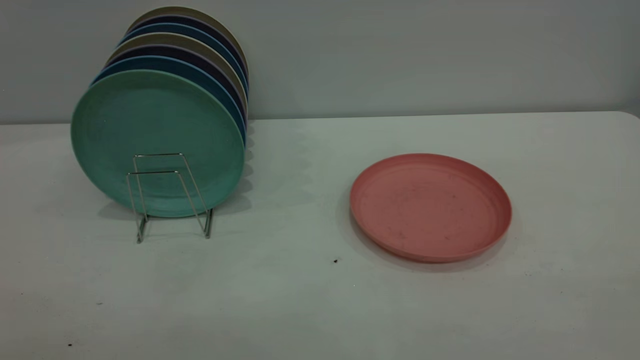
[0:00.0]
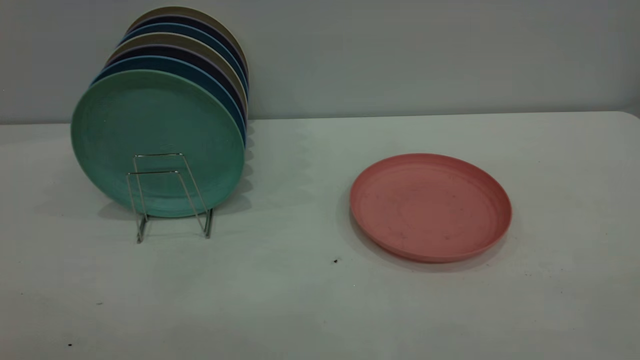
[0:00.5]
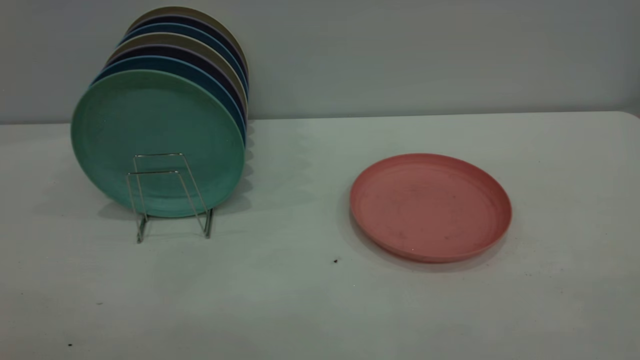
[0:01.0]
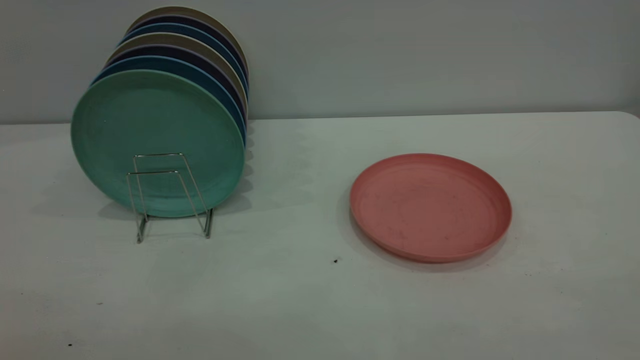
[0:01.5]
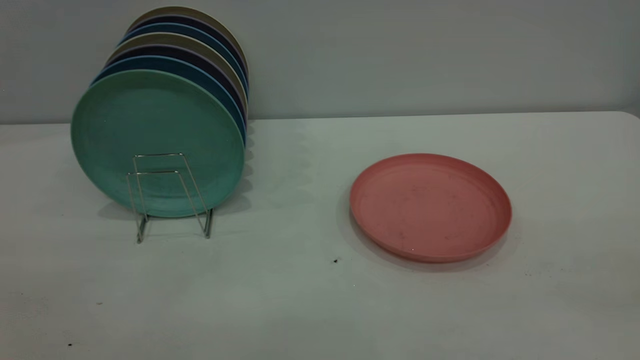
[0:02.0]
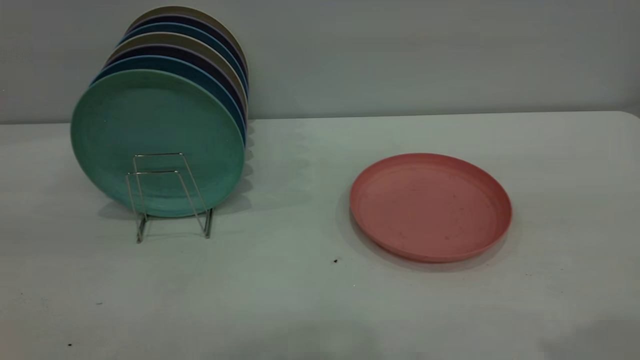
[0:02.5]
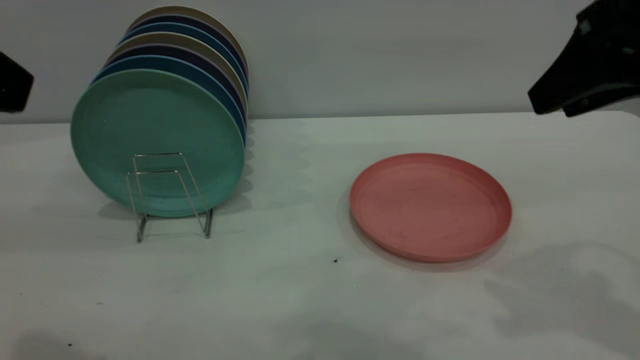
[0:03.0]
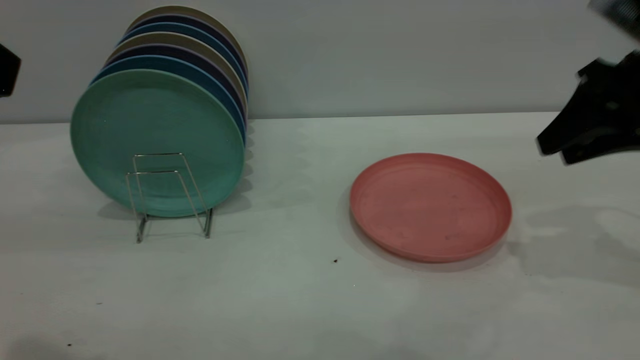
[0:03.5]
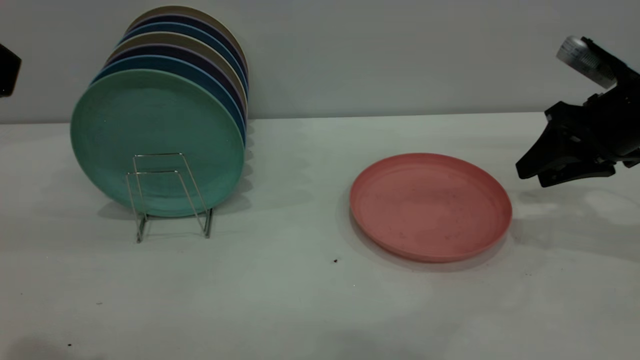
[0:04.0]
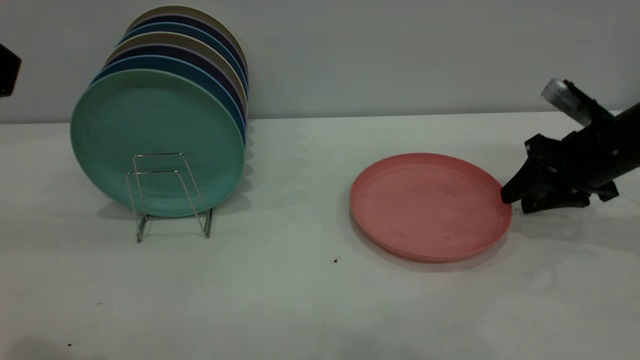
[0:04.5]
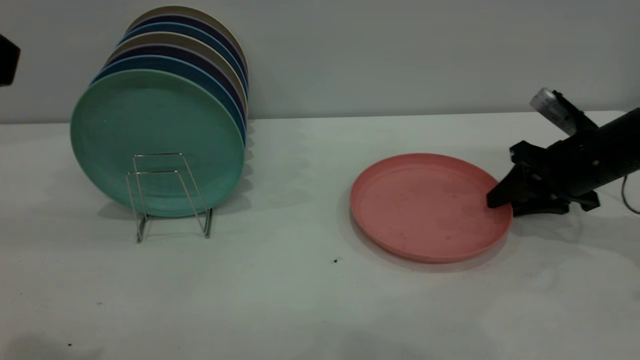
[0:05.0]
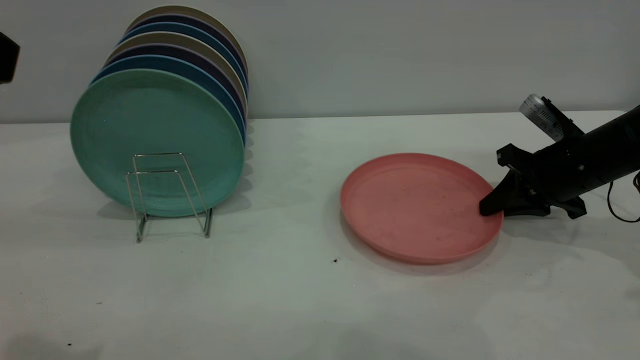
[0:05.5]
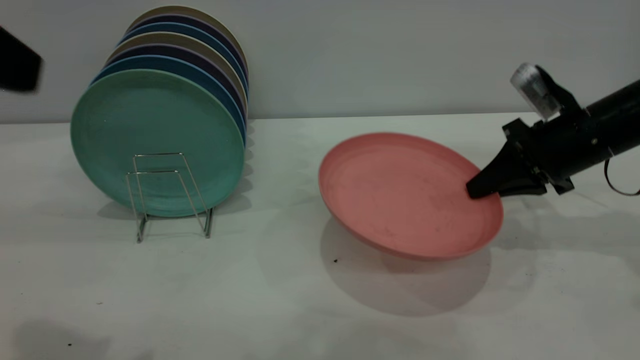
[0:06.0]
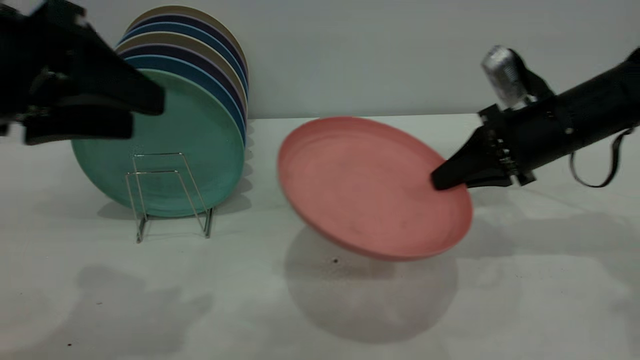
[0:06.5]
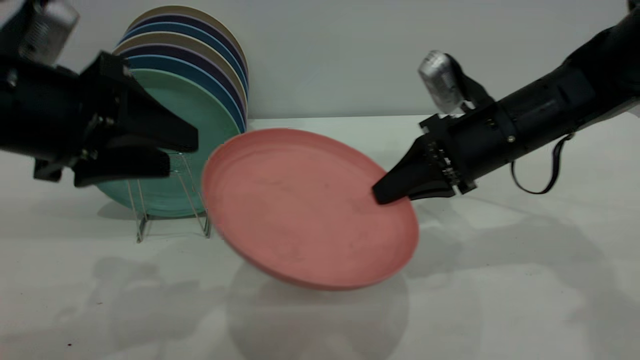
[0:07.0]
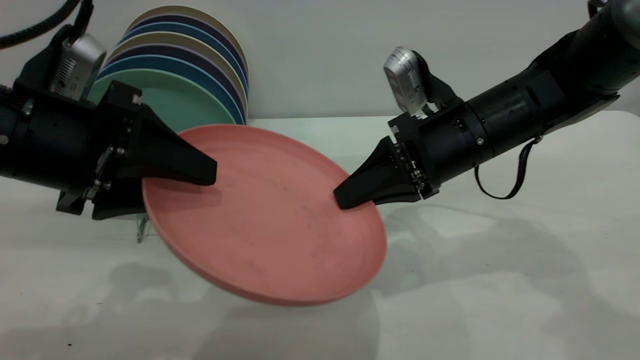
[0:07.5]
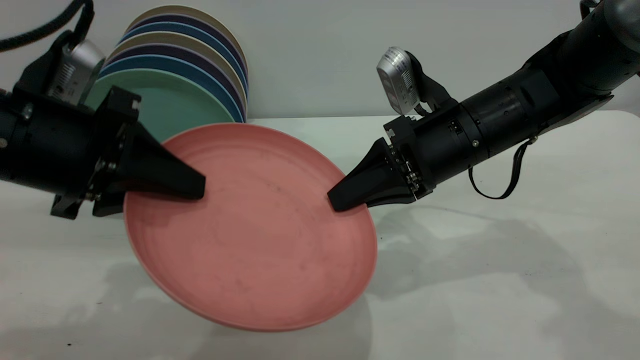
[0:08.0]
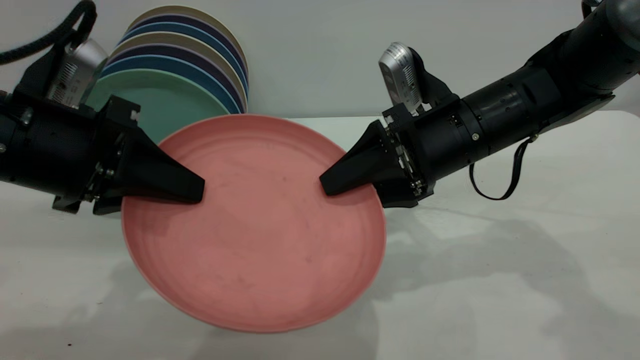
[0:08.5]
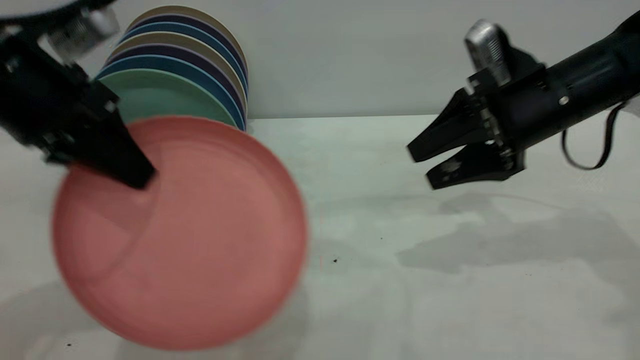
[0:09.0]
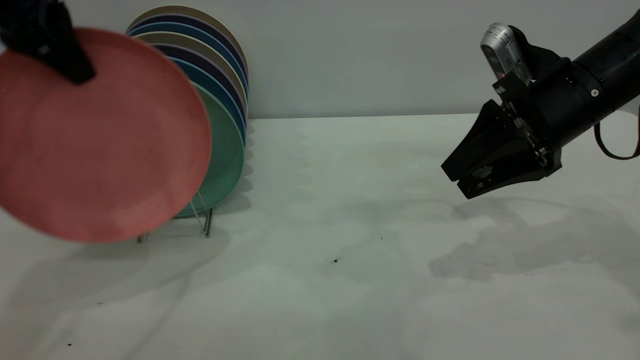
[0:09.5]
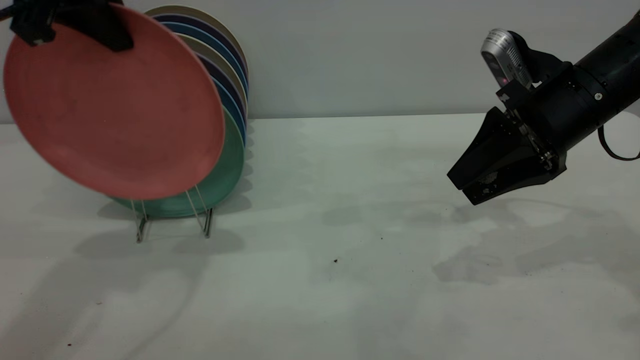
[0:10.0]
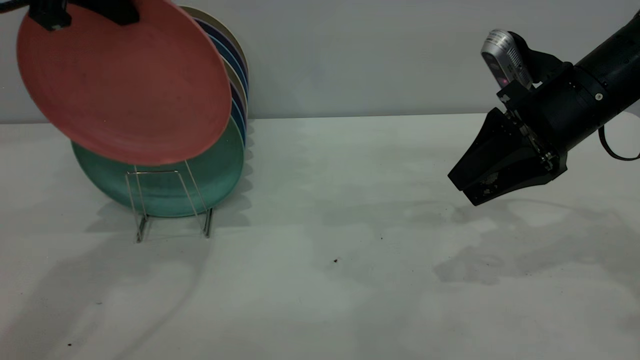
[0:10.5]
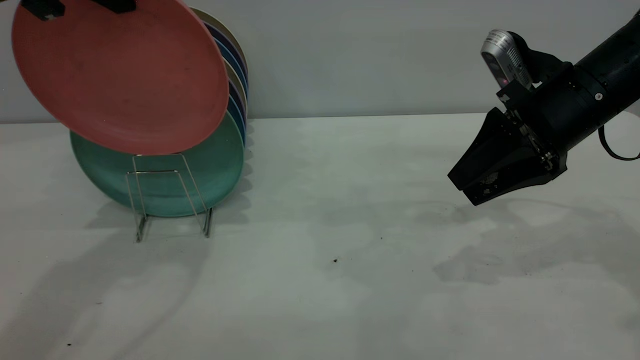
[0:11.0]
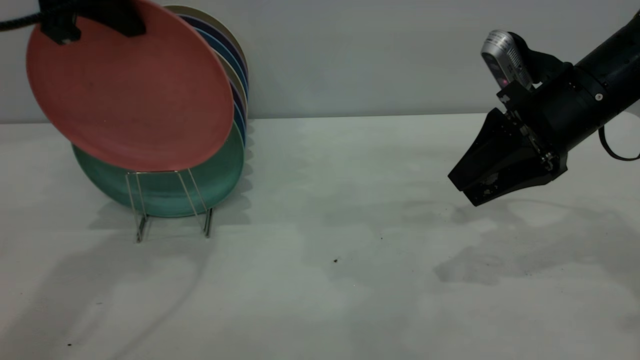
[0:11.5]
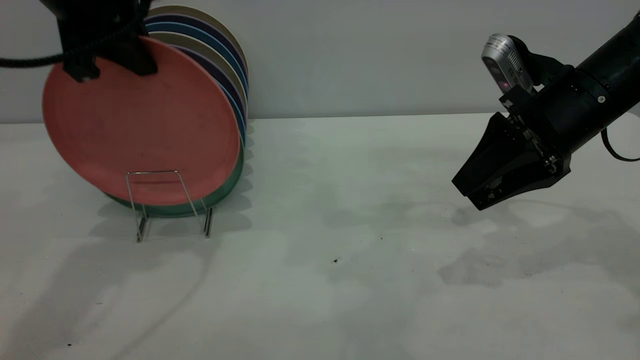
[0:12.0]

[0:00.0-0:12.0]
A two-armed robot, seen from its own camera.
Task of the whole recording: the right gripper grasp the pink plate, the right gripper pass the pink plate to the left gripper, and the left gripper place the pink plate on the plate rack.
Step, 0:00.0 to 0:06.0: Pick up the plate with the right gripper.
Step, 0:06.5 to 0:08.5: Pass the plate from the right gripper to the left gripper.
0:02.0 to 0:04.0: The right gripper is displaced forward and downward by about 40 cm.
0:04.0 to 0:06.0: The right gripper closes.
0:06.0 to 0:08.0: The right gripper travels to the left by approximately 15 cm. The left gripper shifts about 15 cm downward and forward, and closes.
0:08.0 to 0:10.0: The left gripper heads upward and forward, covering some 20 cm. Meanwhile the right gripper goes approximately 10 cm to the right, and opens.
0:10.0 to 0:12.0: The left gripper changes place by about 5 cm.

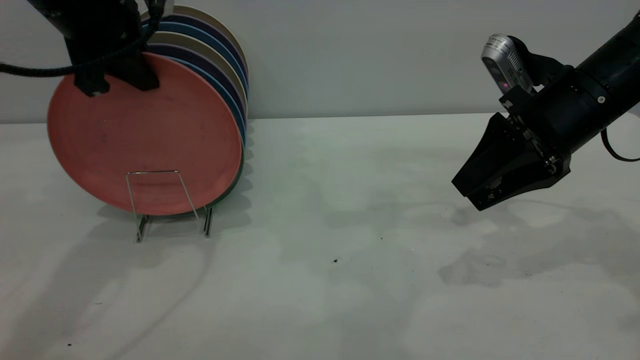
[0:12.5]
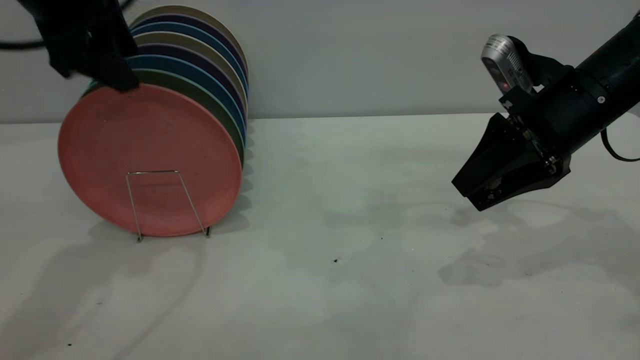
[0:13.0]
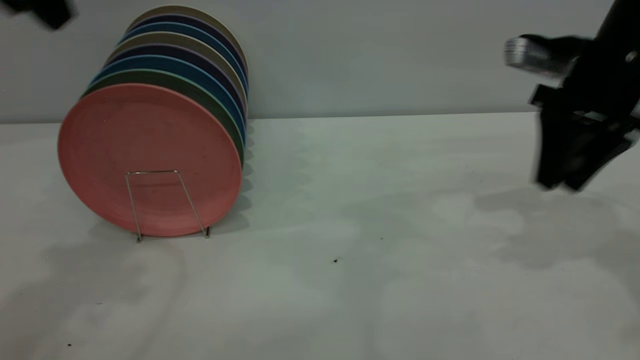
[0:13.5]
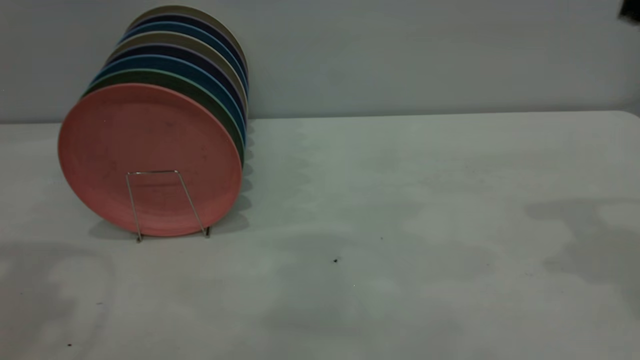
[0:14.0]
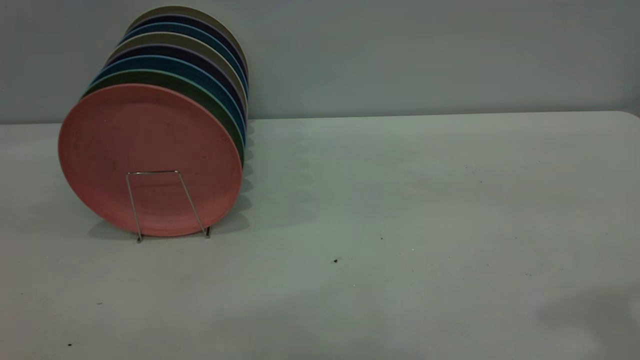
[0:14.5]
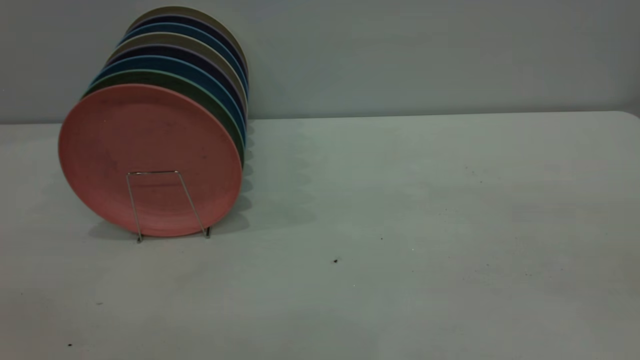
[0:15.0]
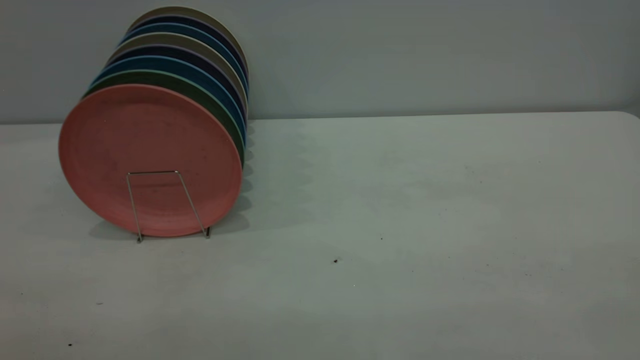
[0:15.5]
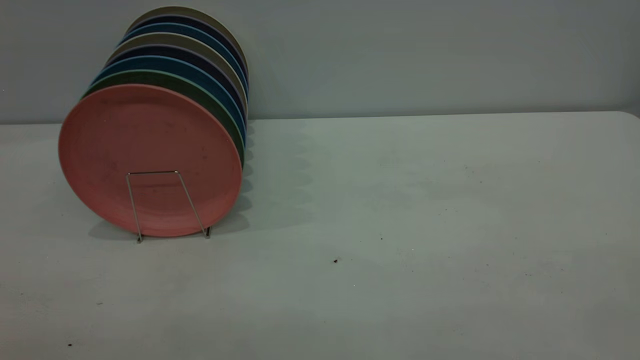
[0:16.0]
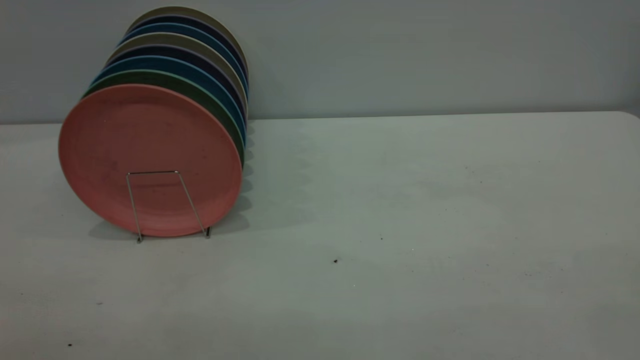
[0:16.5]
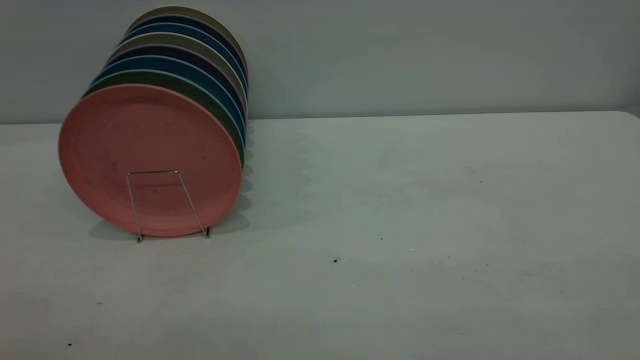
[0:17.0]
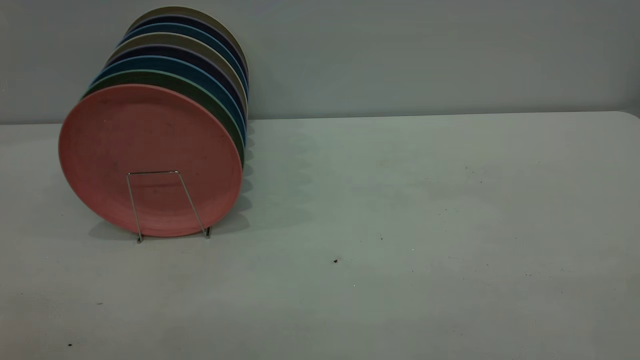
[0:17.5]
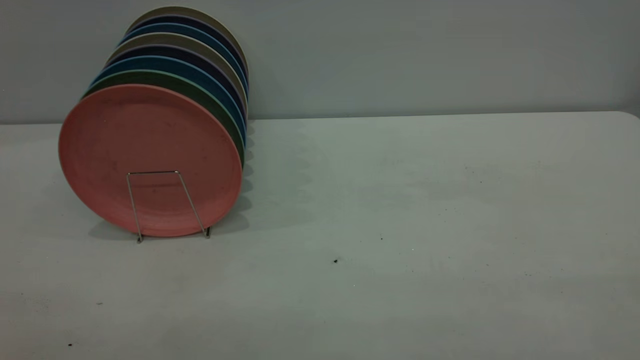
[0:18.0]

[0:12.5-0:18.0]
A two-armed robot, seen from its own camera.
Task of the whole recording: the right gripper grasp the pink plate, the right gripper pass the pink plate to the left gripper, and the left gripper place the pink plate on the plate rack.
0:12.5 to 0:14.5: The left gripper goes some 30 cm backward and upward, and opens its fingers, while the right gripper is displaced upward and backward by roughly 30 cm.
